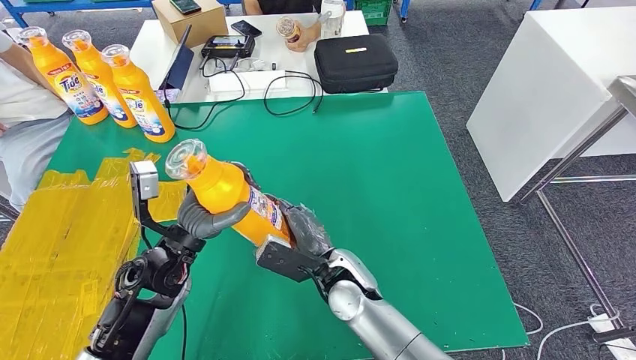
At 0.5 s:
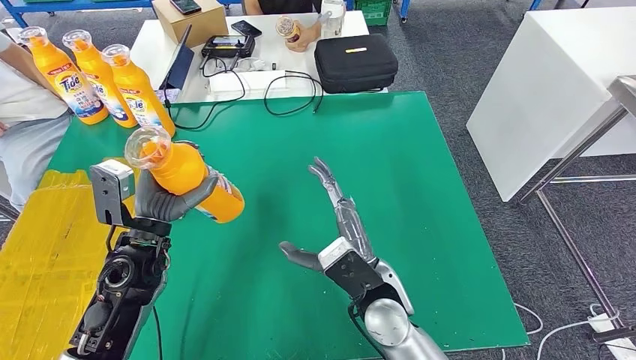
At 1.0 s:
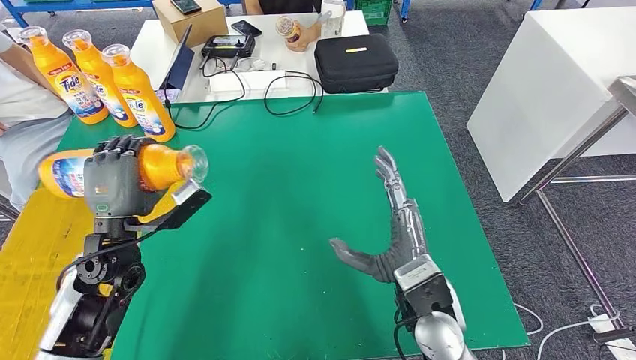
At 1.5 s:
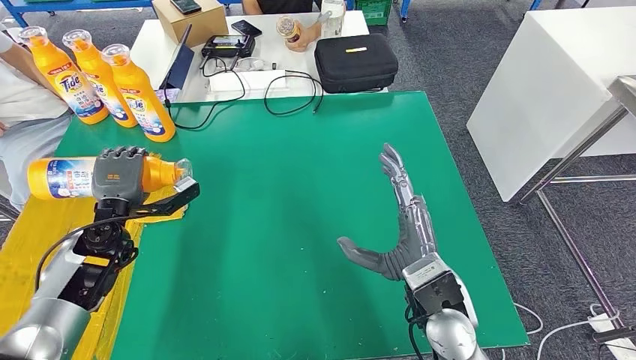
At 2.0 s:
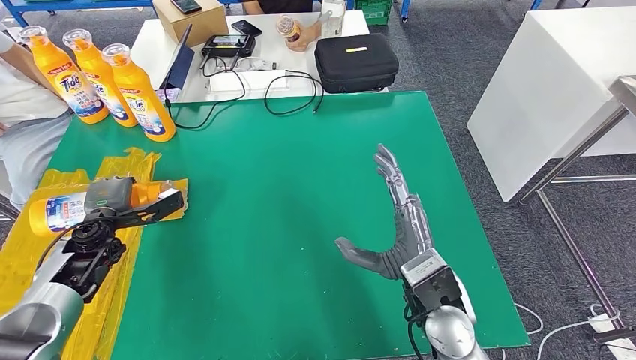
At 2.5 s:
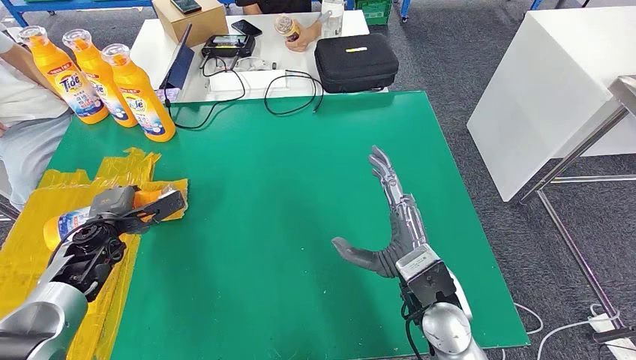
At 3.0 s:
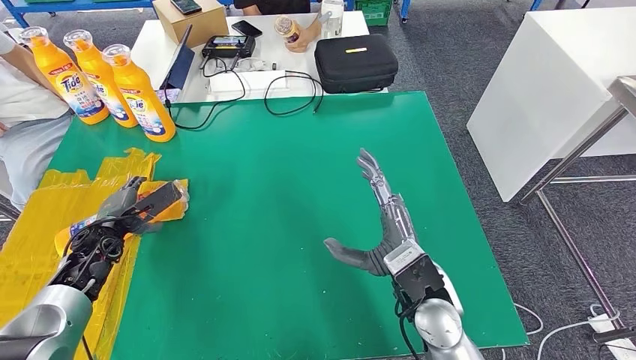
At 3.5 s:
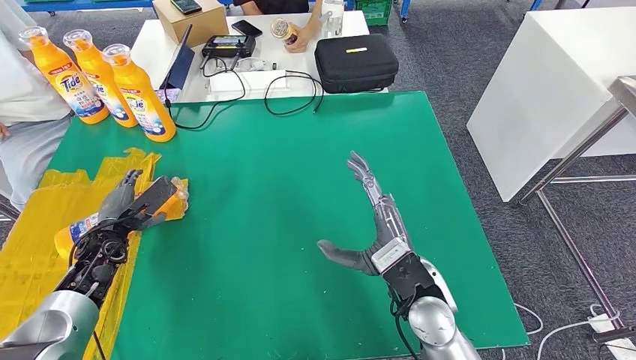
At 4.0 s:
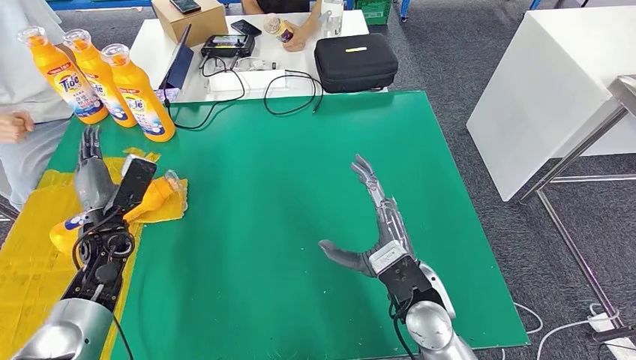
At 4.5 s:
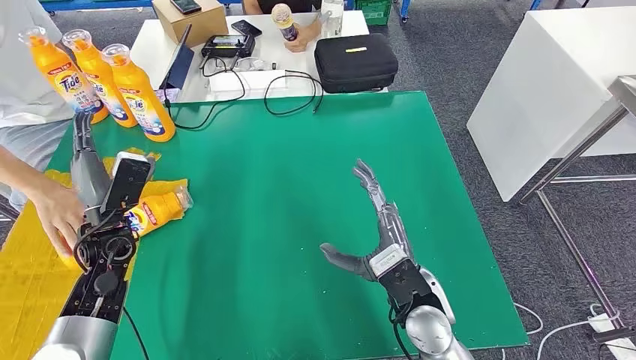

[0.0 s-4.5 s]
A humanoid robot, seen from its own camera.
Step, 0.0 to 4.0 s: Flip the fast-moving consumer goods bottle to the front side.
2.0 to 4.5 s: The left hand heads to the right, covering roughly 5 cm.
